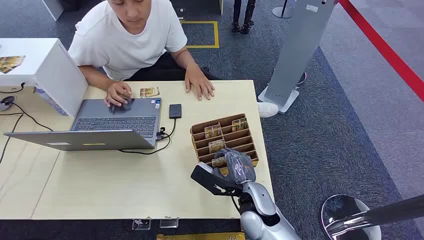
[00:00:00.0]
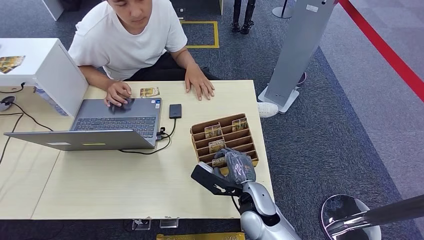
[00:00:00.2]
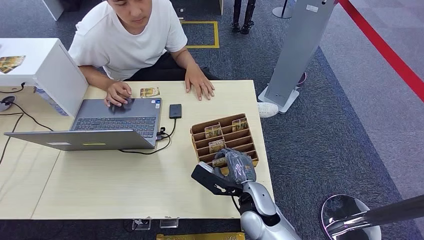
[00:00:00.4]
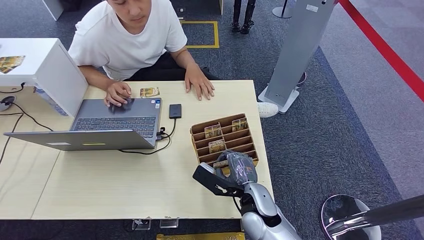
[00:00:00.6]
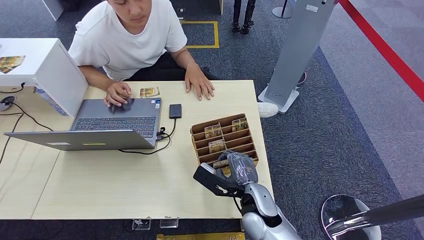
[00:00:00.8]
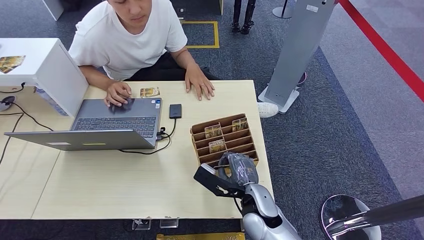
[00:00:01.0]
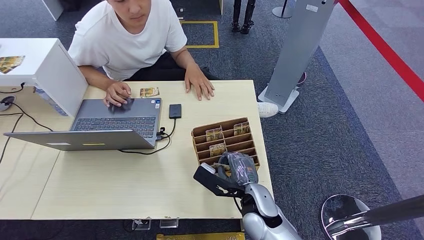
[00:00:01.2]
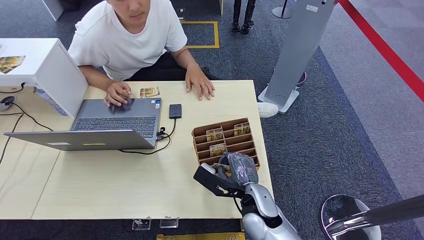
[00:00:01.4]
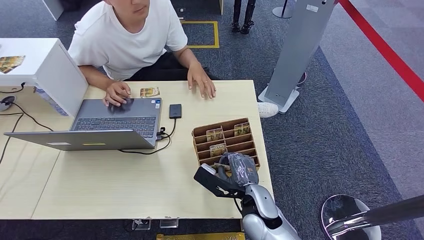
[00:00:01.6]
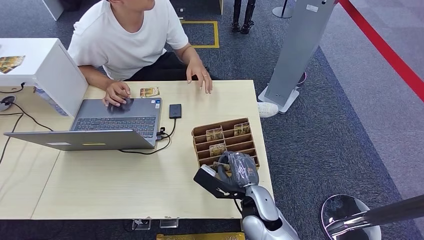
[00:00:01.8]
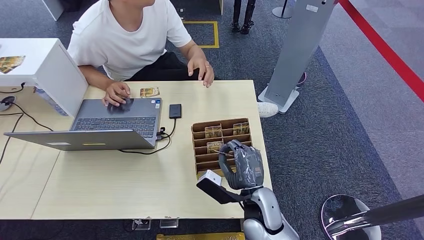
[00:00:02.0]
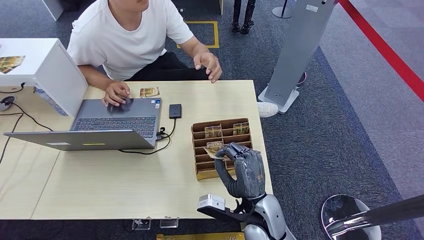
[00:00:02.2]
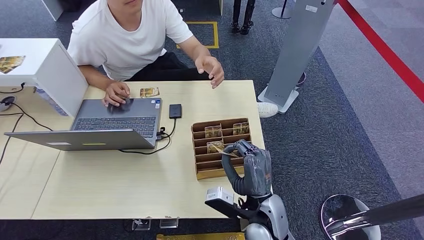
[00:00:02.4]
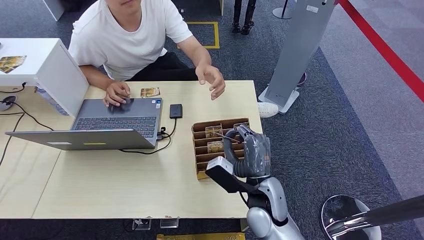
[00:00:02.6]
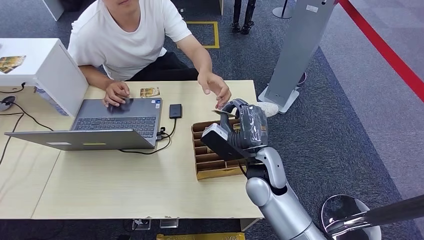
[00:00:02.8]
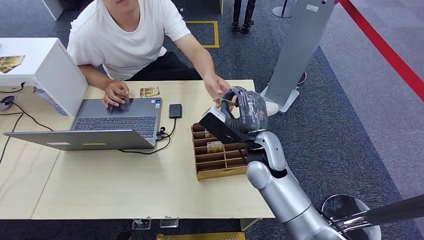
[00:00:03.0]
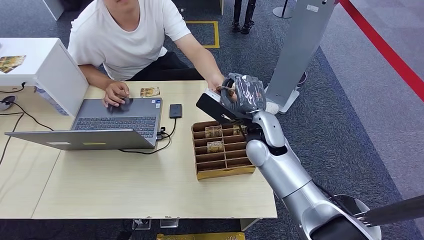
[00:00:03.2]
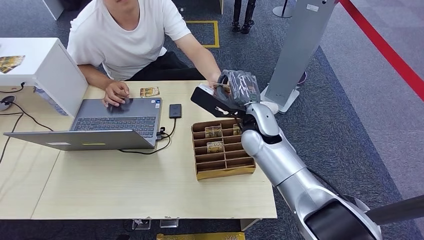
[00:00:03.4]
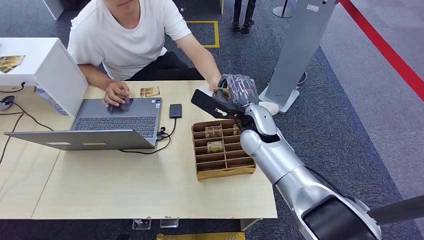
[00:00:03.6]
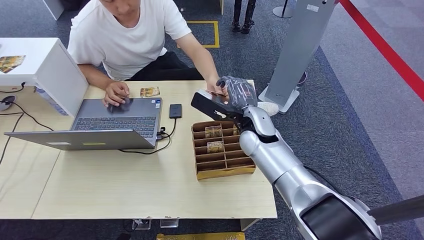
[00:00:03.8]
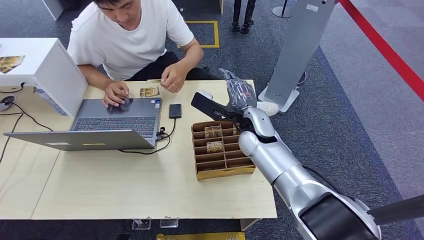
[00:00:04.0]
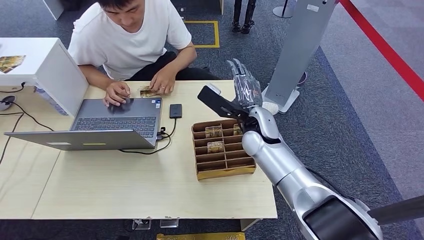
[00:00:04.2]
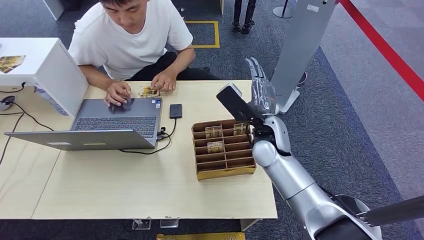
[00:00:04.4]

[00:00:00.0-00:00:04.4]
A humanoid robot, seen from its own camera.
Step, 00:00:00.0 to 00:00:02.4: Pick up the room card from the card holder.
Step, 00:00:02.6 to 00:00:04.4: Hand the room card to the target.
00:00:01.4 to 00:00:03.0: The right hand moves upward and forward, some 15 cm.
